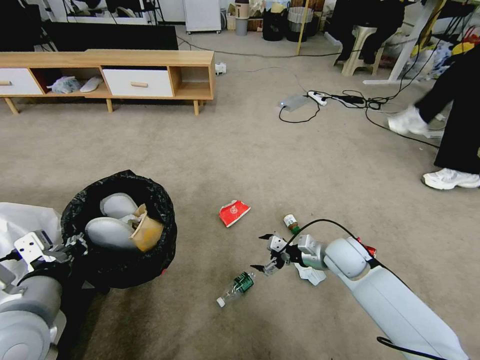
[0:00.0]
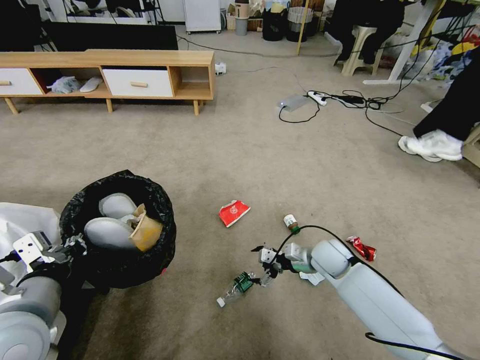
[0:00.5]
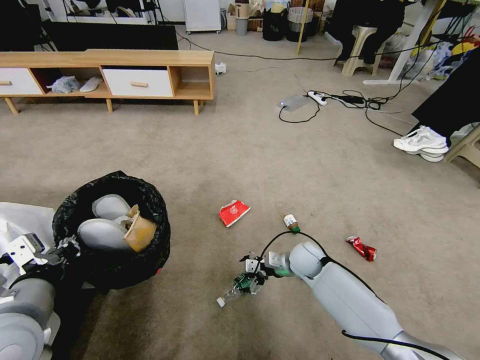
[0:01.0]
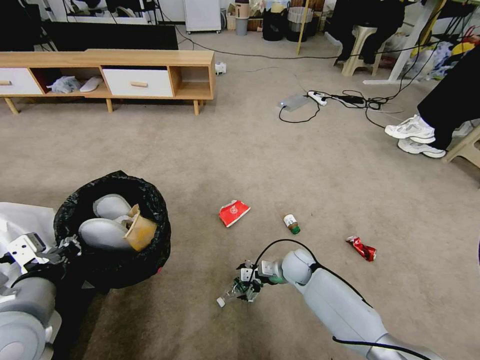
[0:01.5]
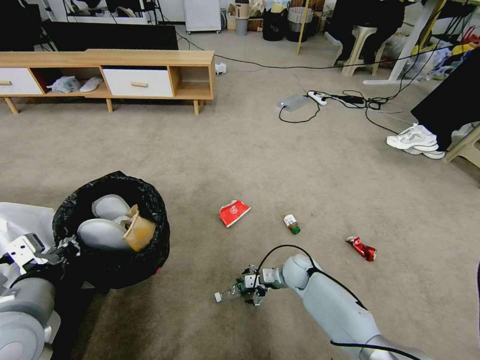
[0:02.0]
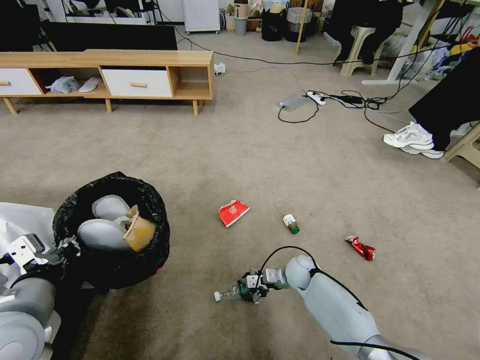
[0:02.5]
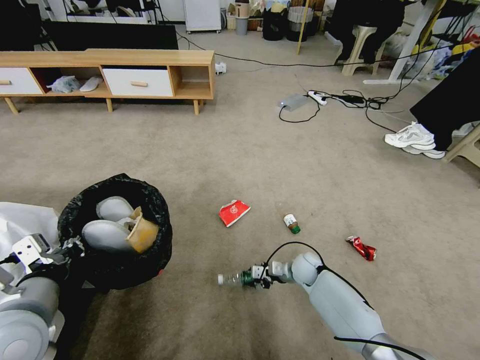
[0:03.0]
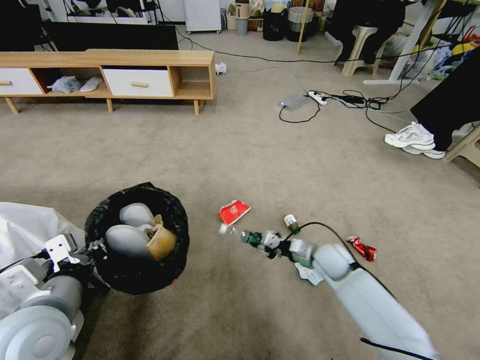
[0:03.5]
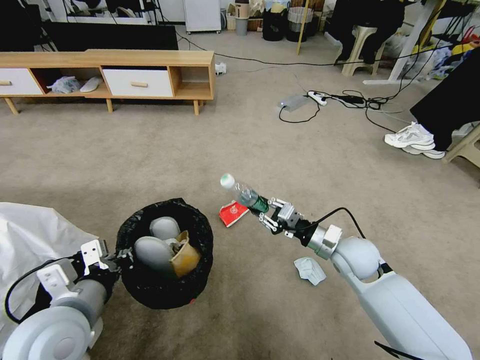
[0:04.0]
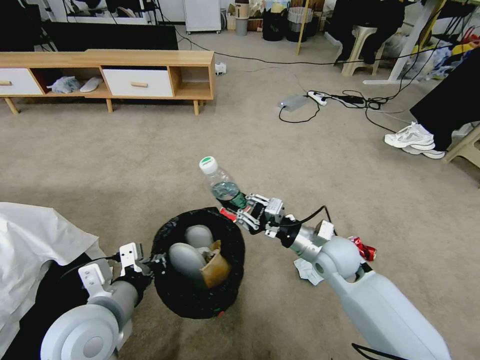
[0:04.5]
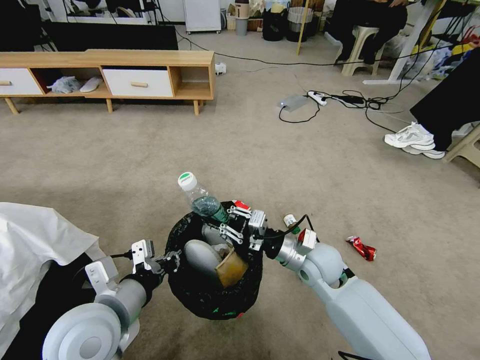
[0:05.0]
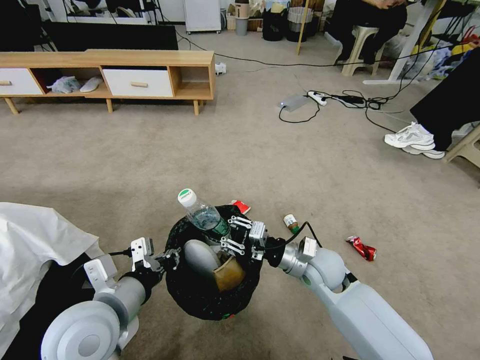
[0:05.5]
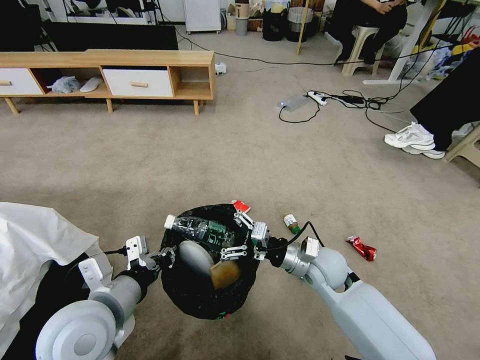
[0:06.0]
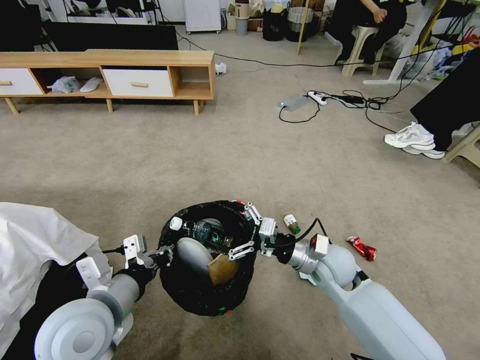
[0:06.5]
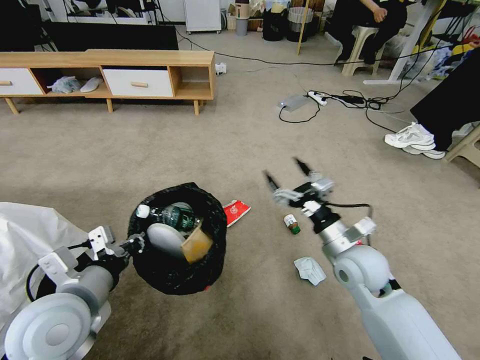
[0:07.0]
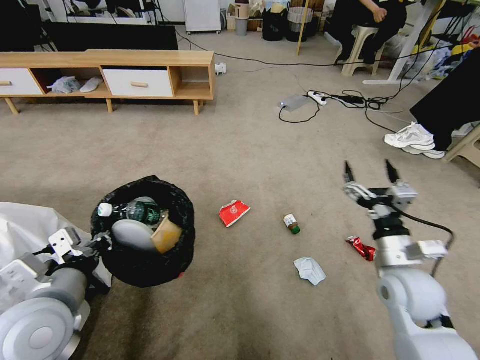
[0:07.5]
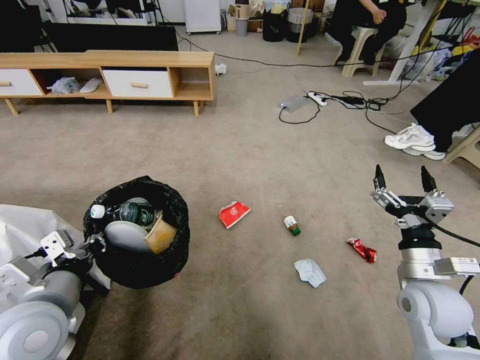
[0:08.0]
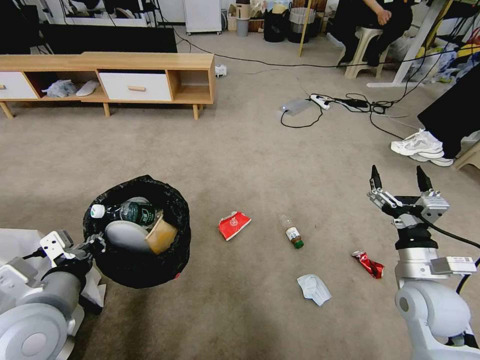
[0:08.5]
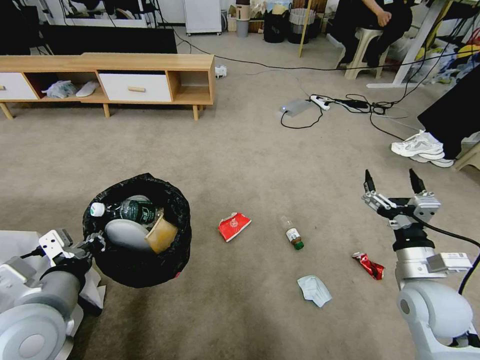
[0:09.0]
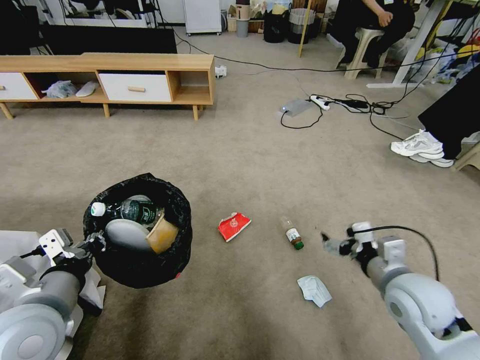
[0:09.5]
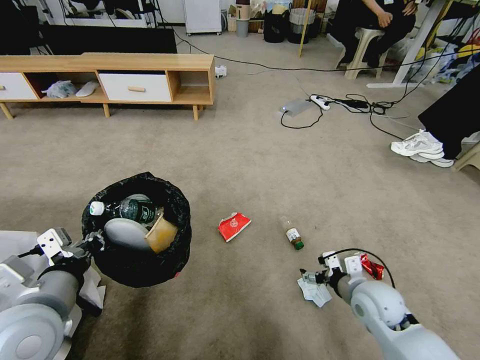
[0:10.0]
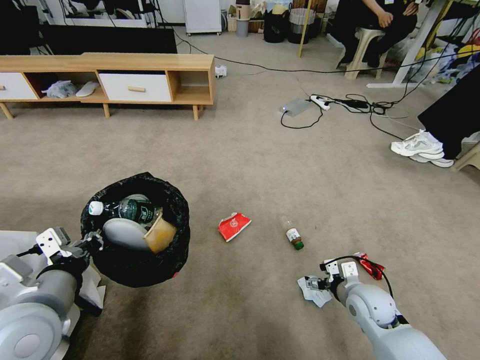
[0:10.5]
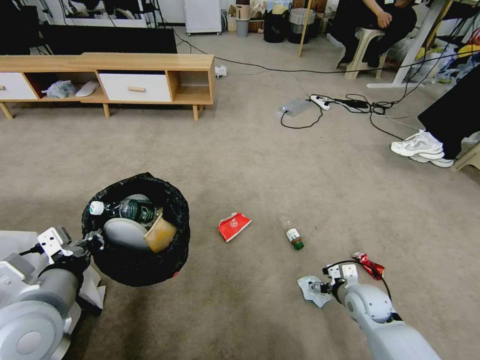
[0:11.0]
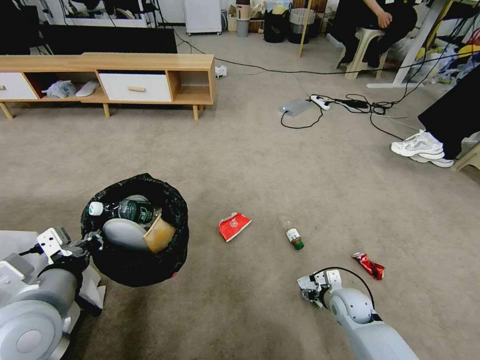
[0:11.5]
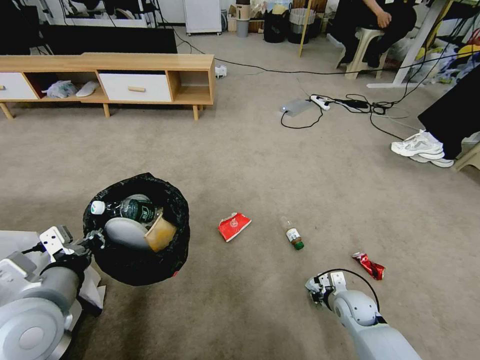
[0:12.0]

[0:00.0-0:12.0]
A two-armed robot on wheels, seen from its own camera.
Task of the whole recording: Pick up the trash bin and place the garbage on the floor into it.
0:00.0 to 0:02.0: The right gripper travels downward and to the left by about 15 cm.
0:02.0 to 0:04.0: The right gripper travels upward and to the right by about 20 cm, and closes up; the left gripper moves about 5 cm.
0:04.0 to 0:06.0: The right gripper heads to the left, covering roughly 5 cm, and opens.
0:06.0 to 0:08.0: The right gripper goes approximately 20 cm to the right and backward; the left gripper heads to the left, covering about 5 cm.
0:08.0 to 0:10.0: The right gripper heads downward and to the left, covering approximately 10 cm.
0:10.0 to 0:12.0: The right gripper goes approximately 10 cm downward, and closes.

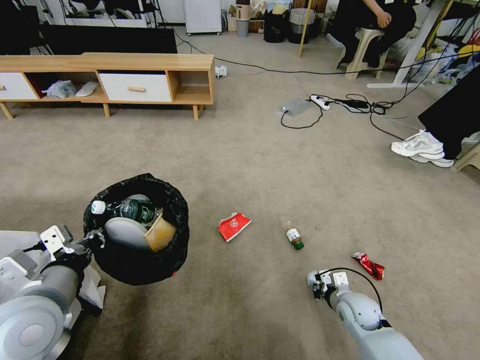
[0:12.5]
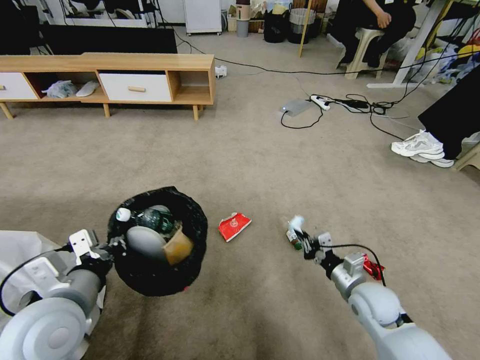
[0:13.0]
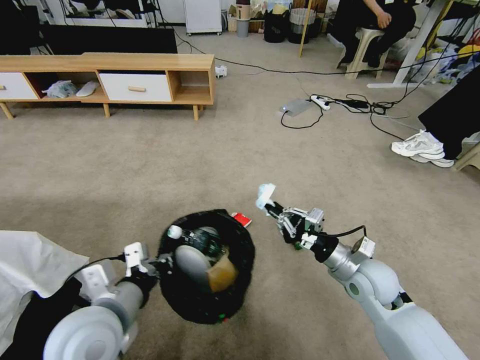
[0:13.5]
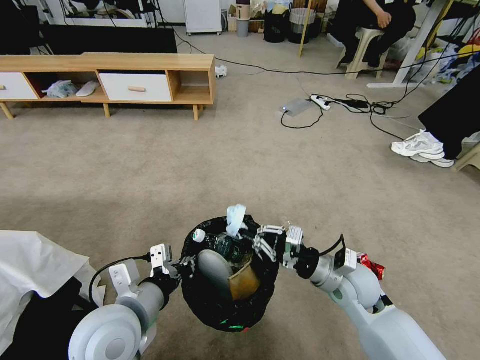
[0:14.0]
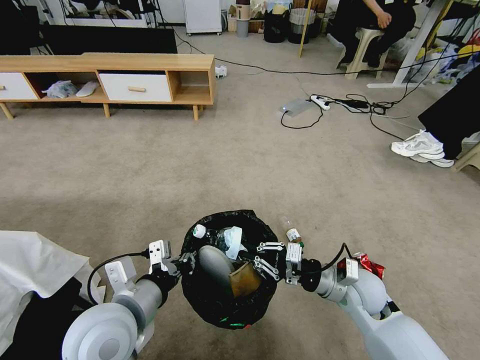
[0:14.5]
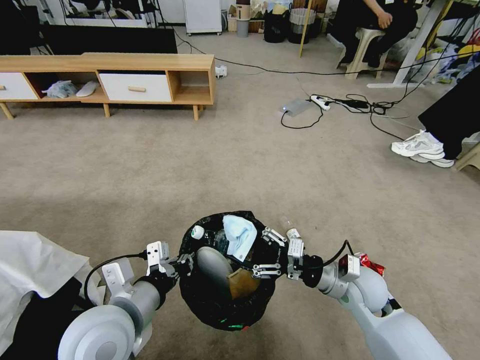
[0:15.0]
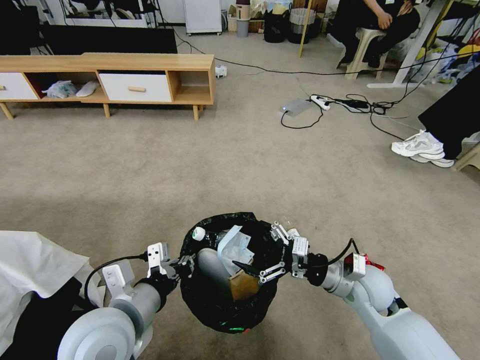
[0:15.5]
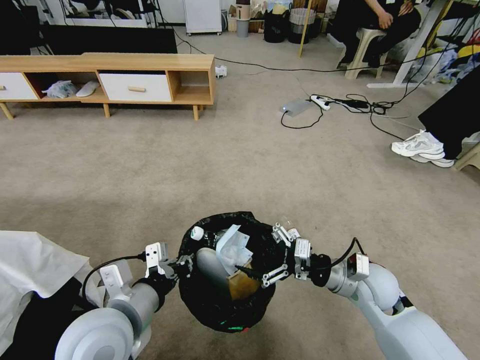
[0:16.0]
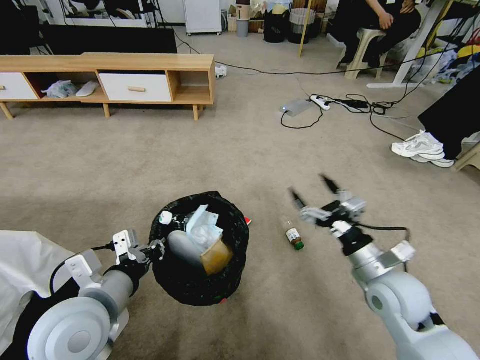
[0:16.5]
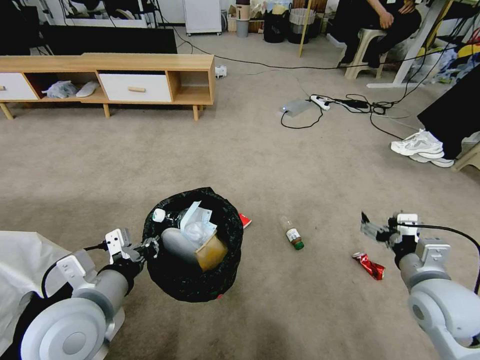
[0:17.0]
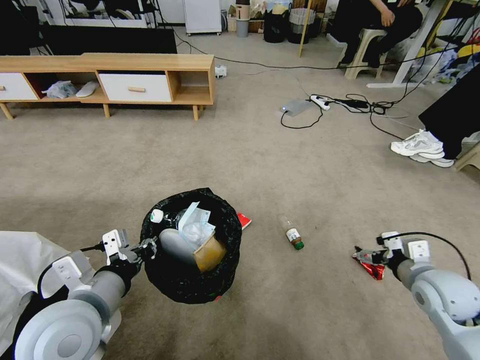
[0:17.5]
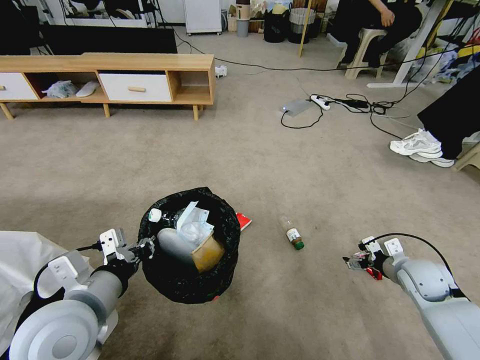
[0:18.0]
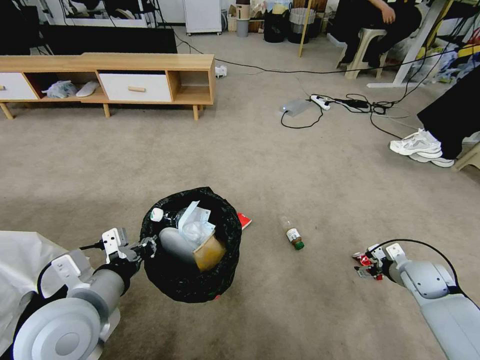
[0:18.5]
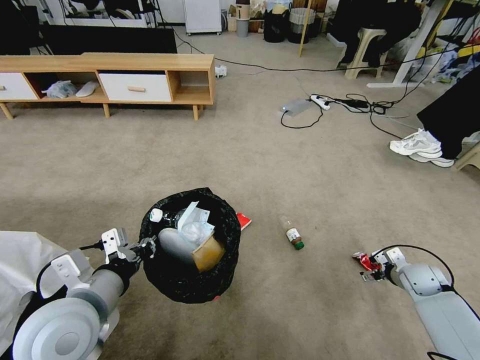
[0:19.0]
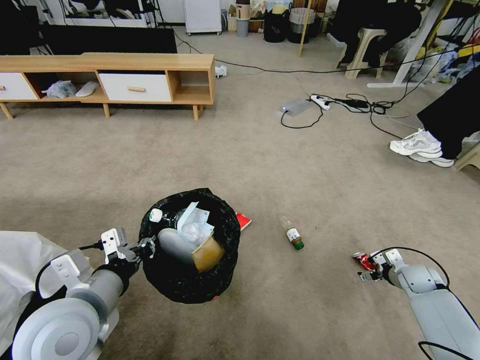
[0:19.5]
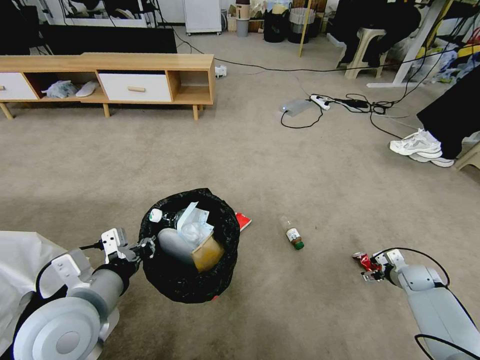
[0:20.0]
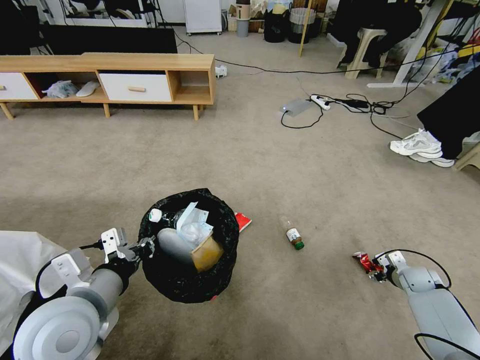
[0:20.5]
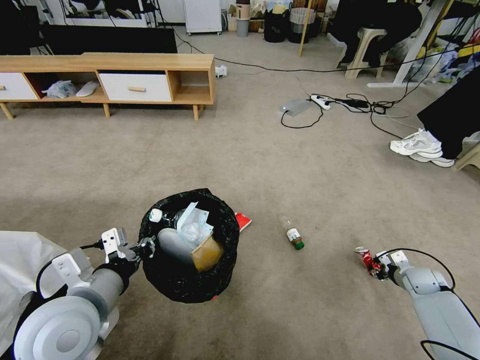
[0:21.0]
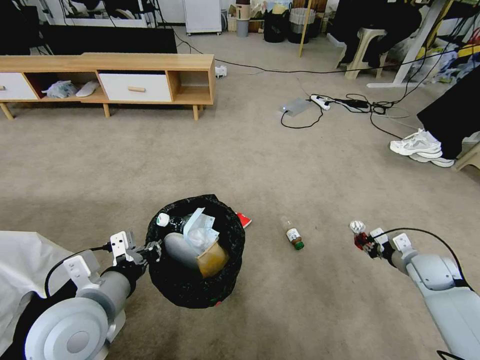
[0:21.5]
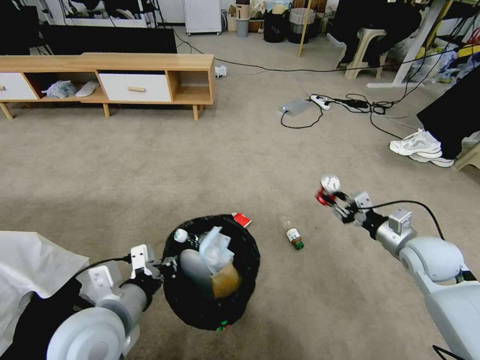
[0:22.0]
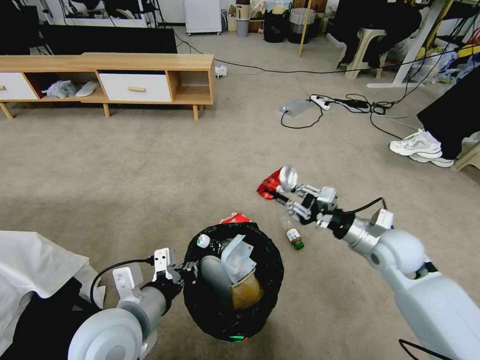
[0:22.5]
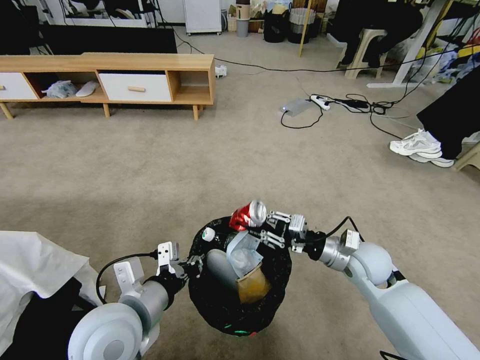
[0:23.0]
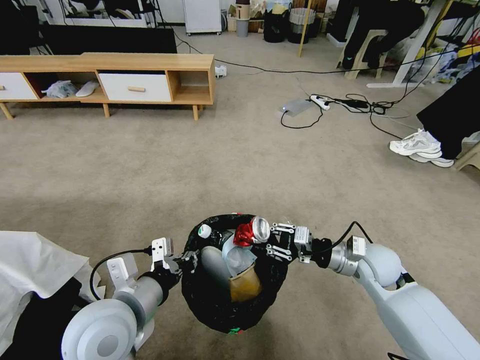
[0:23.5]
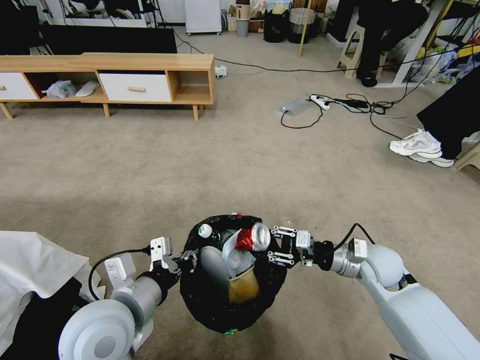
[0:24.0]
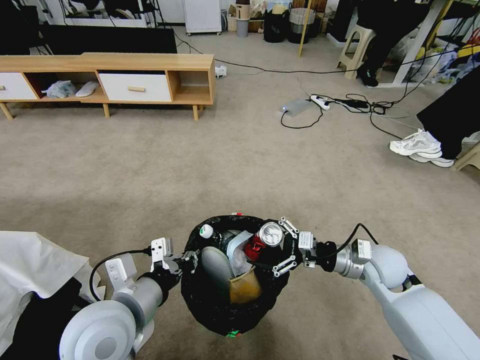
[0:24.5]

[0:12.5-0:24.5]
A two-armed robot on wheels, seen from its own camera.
Task of the whole recording: Pick up the trash bin and place the garbage on the floor into it.
0:12.5 to 0:14.5: The right gripper shifts some 15 cm upward; the left gripper travels to the right by approximately 10 cm.
0:14.5 to 0:16.5: The right gripper shifts by some 5 cm, and opens up.
0:16.5 to 0:18.5: The right gripper heads to the right, downward and forward, covering some 25 cm.
0:18.5 to 0:20.5: The right gripper is displaced downward and to the right by approximately 10 cm, and closes its fingers.
0:20.5 to 0:22.5: The right gripper moves upward and to the left, about 30 cm, and closes. The left gripper heads to the right, covering approximately 5 cm.
0:22.5 to 0:24.5: The right gripper moves approximately 5 cm, and opens up.

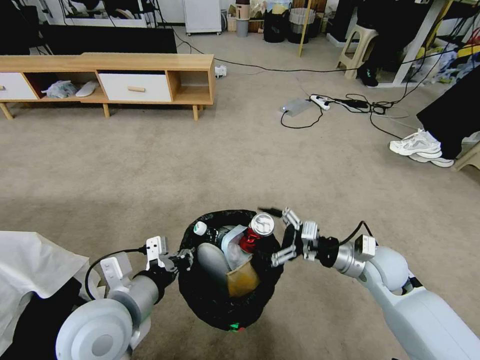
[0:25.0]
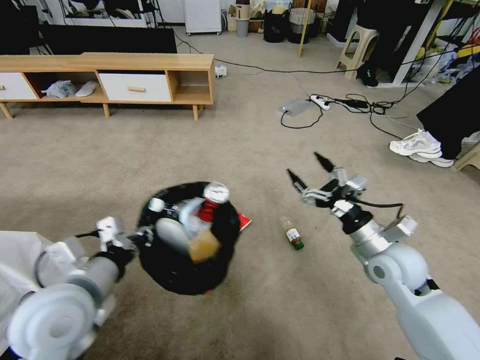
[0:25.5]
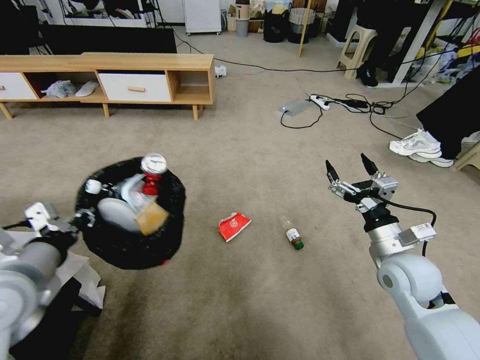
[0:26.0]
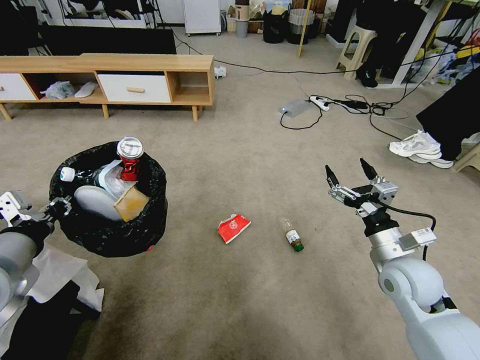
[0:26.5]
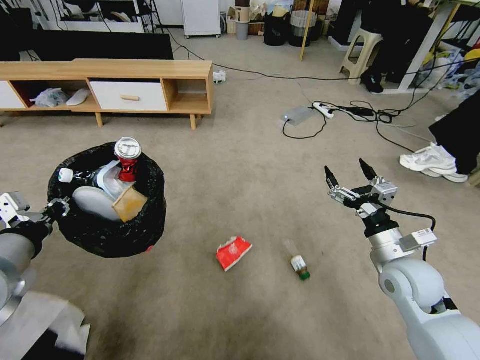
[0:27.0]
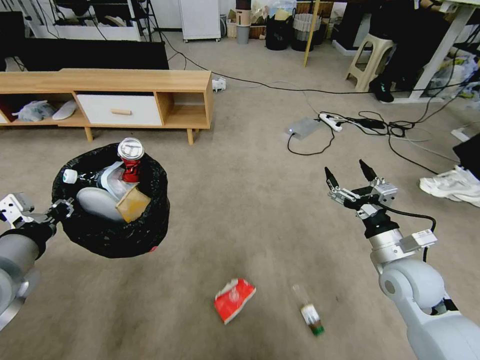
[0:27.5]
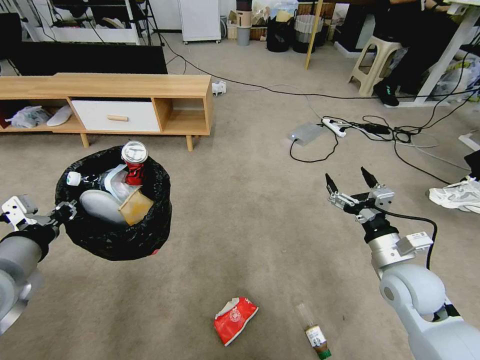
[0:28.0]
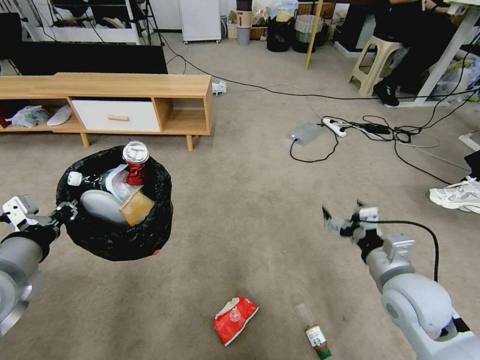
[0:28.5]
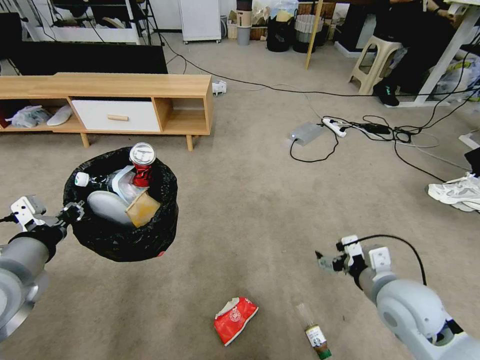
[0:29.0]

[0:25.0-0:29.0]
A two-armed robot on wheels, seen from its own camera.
Task of the whole recording: Pick up the trash bin and place the garbage on the floor into it.
0:25.0 to 0:27.0: The left gripper is displaced to the left and upward by some 20 cm. Meanwhile the right gripper moves roughly 5 cm.
0:27.0 to 0:29.0: The right gripper heads backward, covering roughly 5 cm.
